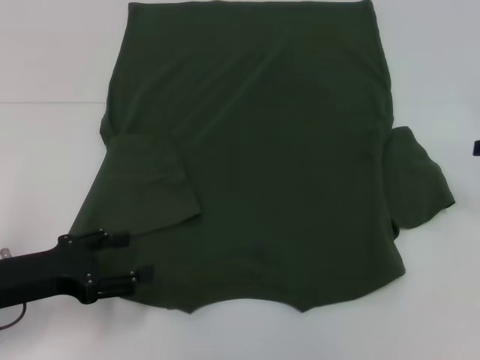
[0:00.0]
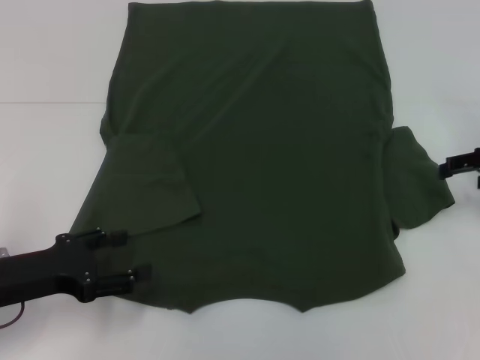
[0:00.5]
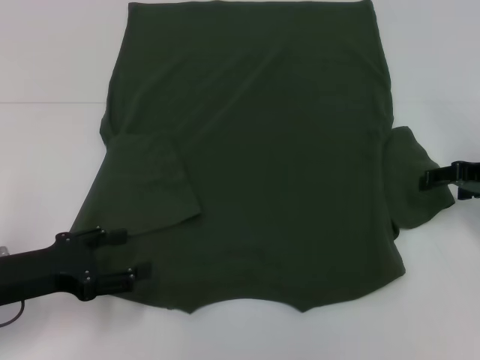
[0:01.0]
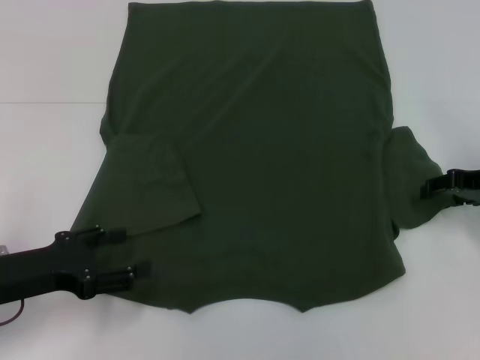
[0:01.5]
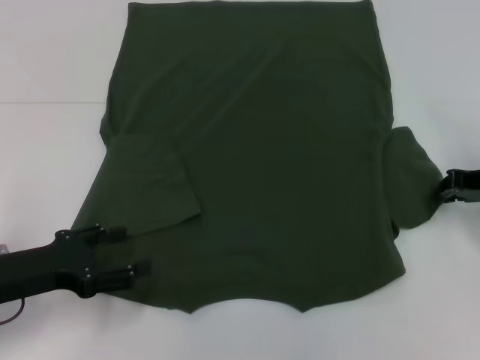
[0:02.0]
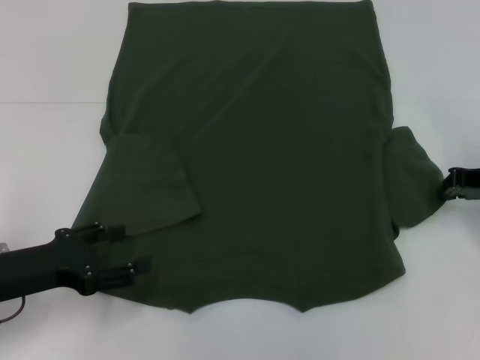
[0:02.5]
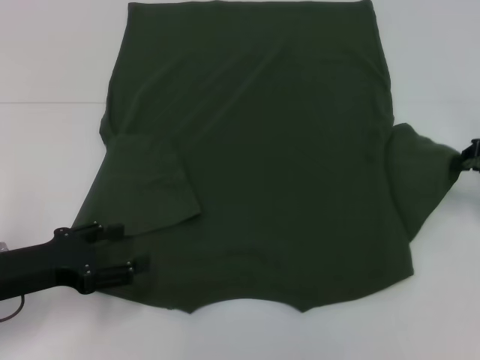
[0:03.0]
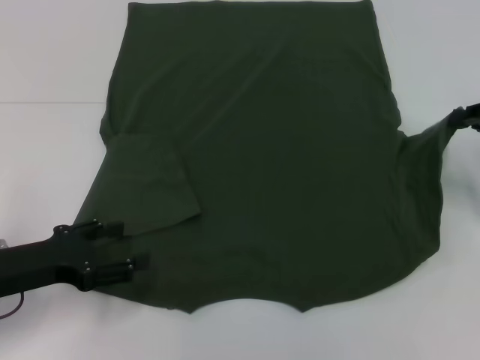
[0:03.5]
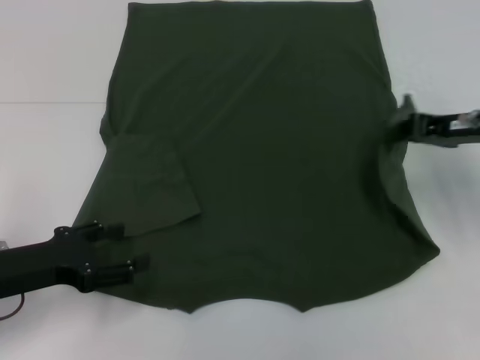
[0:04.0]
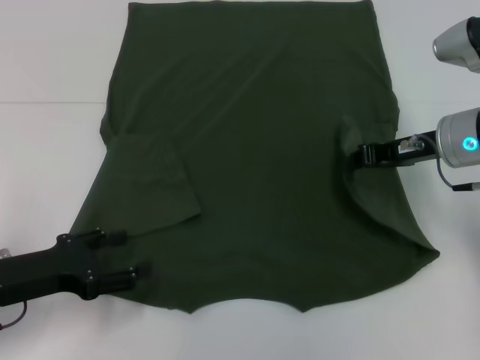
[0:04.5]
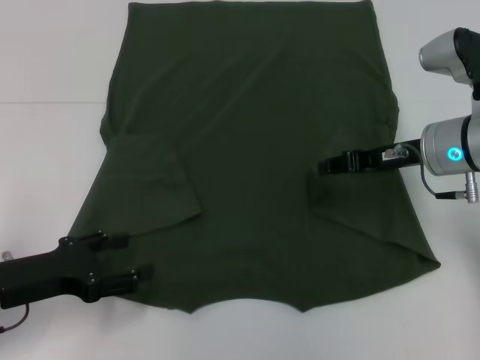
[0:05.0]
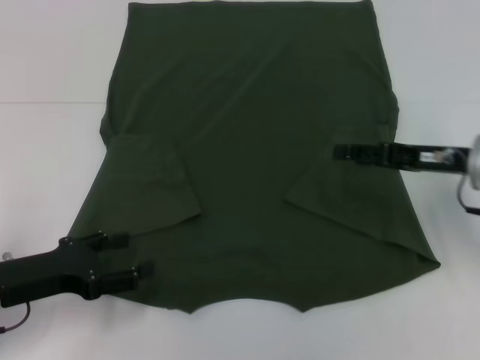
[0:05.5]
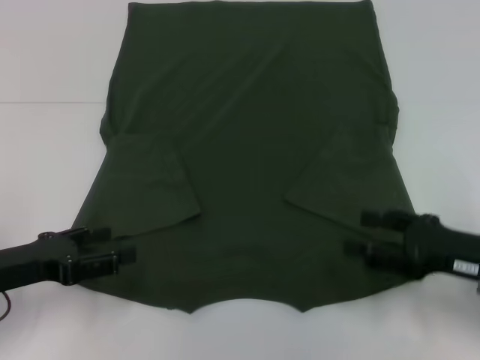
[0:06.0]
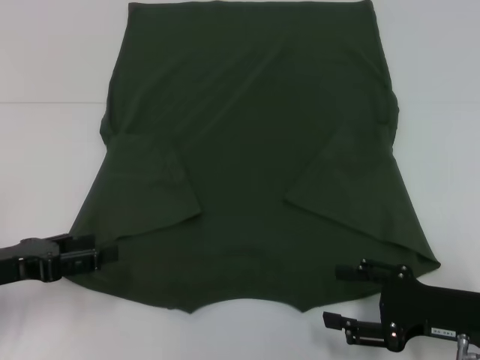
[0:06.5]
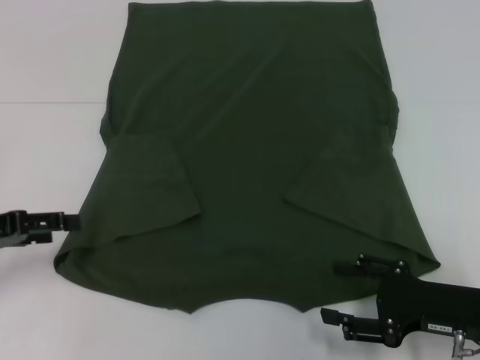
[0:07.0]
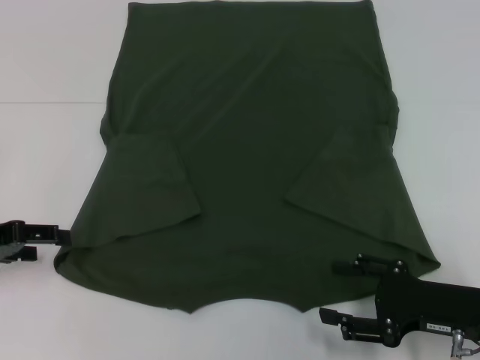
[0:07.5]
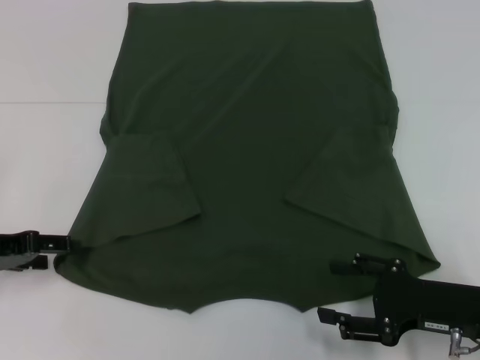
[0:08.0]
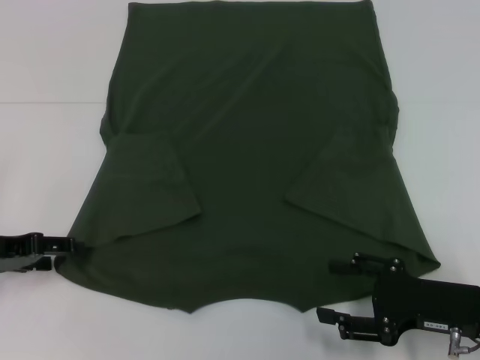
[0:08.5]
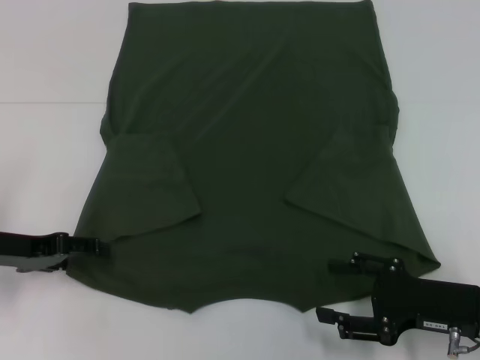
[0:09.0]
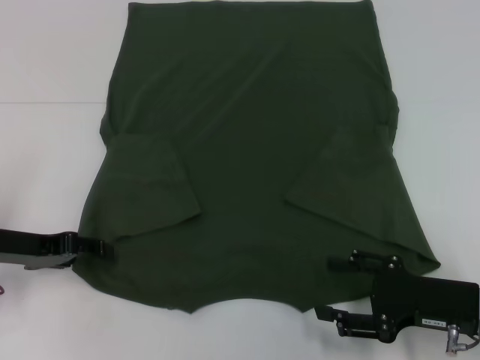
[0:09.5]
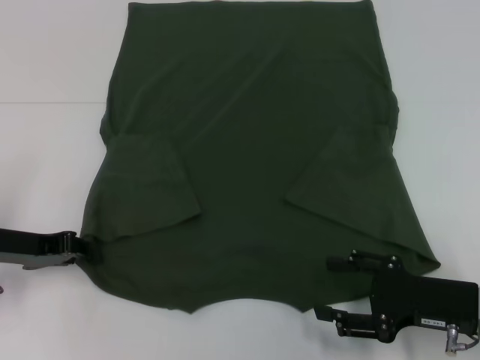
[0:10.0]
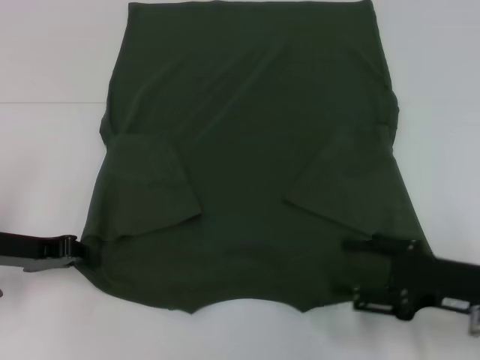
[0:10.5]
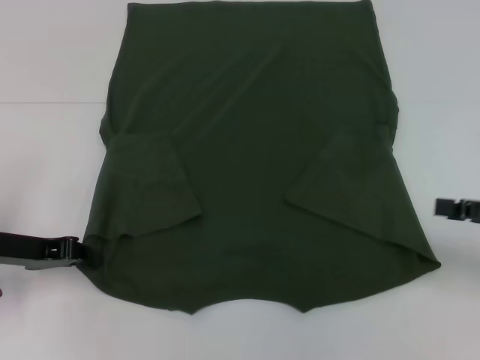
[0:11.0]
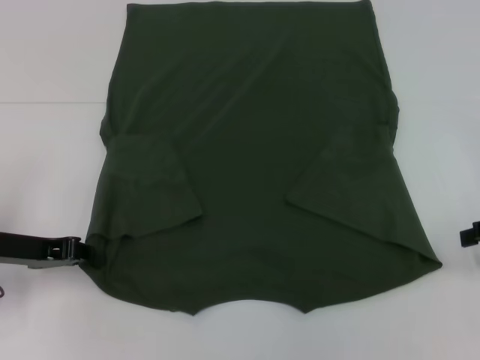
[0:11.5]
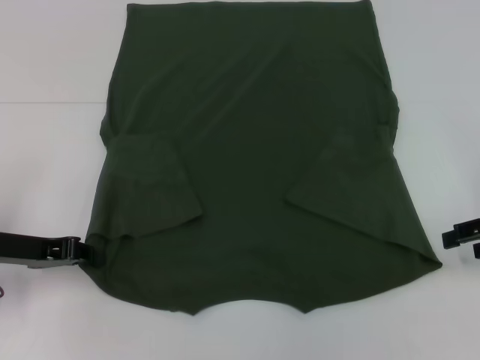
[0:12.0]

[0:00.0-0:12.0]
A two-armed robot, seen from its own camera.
Step, 0:00.0 to 0:05.0: Fold the bottom right sleeve with your right hand.
Step, 0:05.5 to 0:11.0: Grab the bottom left corner with your left hand.
0:00.0 to 0:02.0: The right gripper travels downward and to the left by roughly 10 cm, and closes its fingers.
0:04.0 to 0:06.0: The right gripper goes approximately 15 cm backward and downward, and opens.
0:06.0 to 0:08.0: The left gripper shifts roughly 5 cm forward.
0:08.0 to 0:10.0: The left gripper closes.
0:10.0 to 0:12.0: The right gripper heads to the right, upward and forward, covering approximately 15 cm.

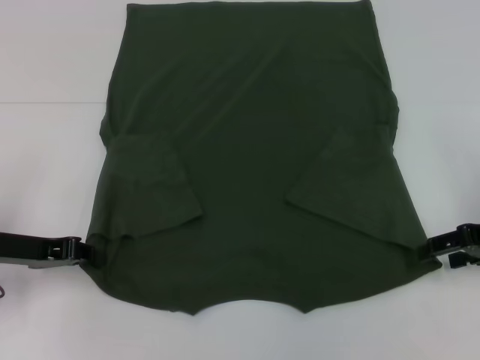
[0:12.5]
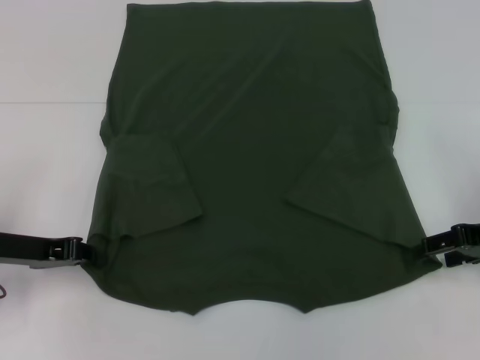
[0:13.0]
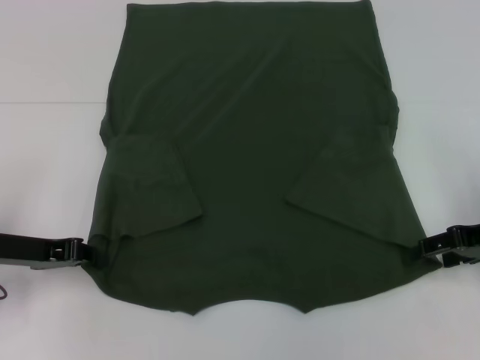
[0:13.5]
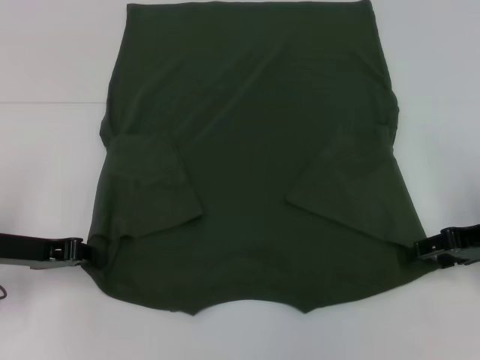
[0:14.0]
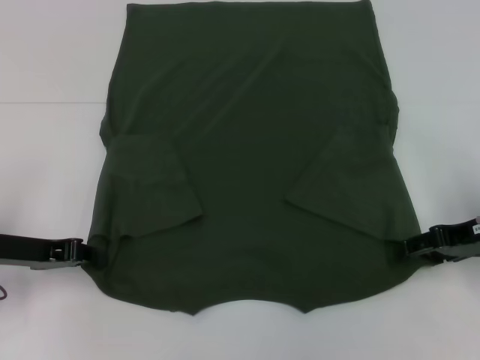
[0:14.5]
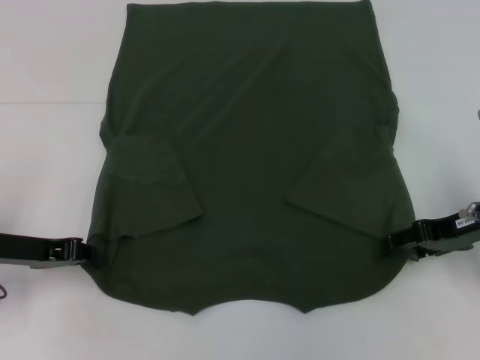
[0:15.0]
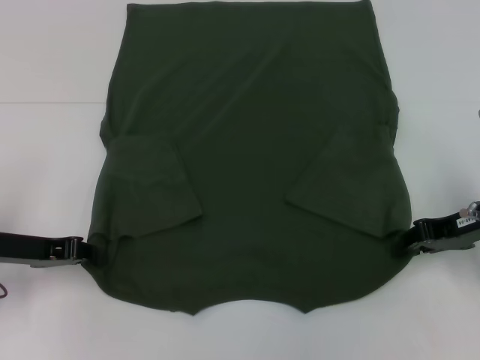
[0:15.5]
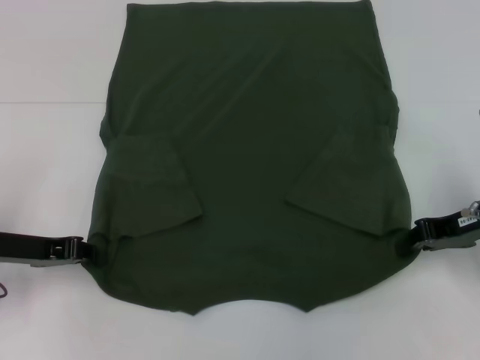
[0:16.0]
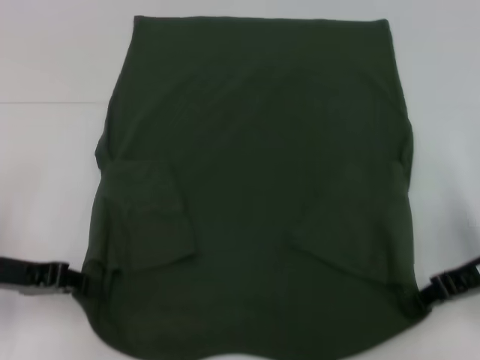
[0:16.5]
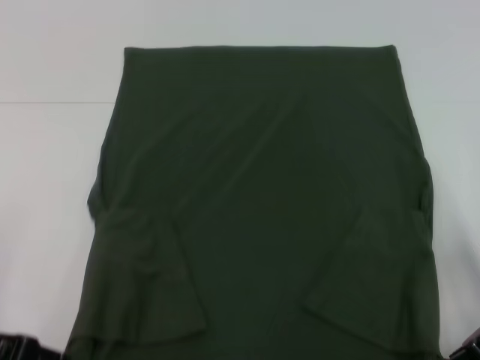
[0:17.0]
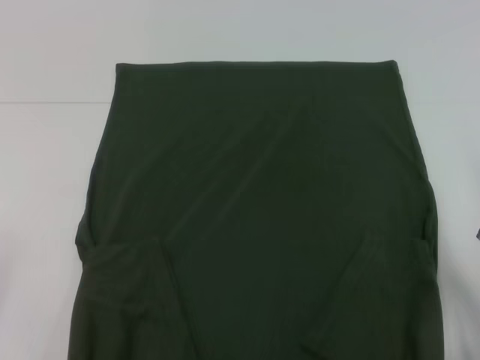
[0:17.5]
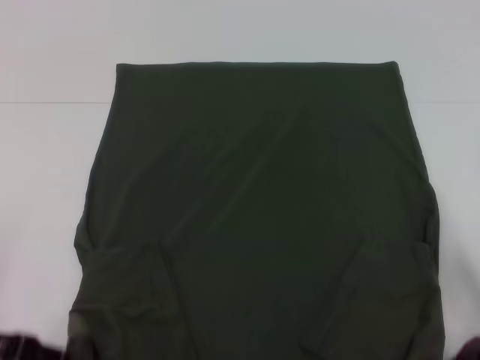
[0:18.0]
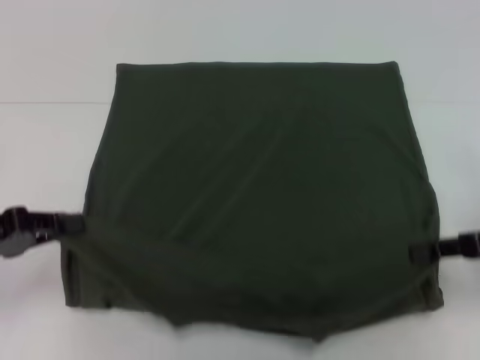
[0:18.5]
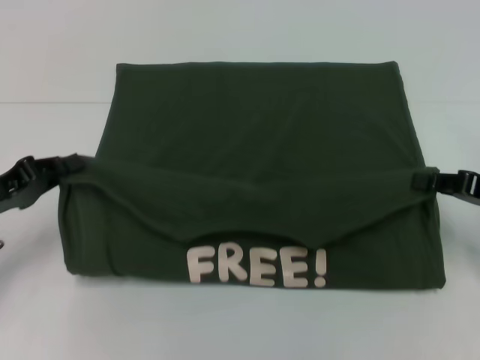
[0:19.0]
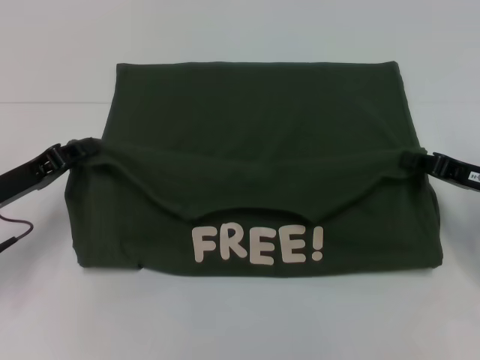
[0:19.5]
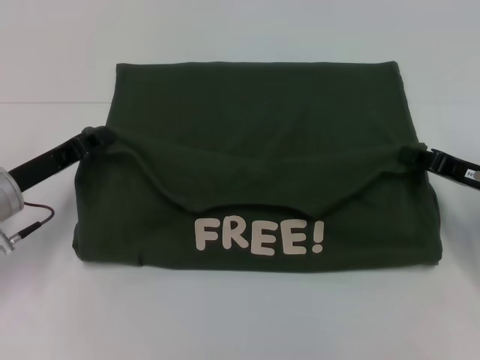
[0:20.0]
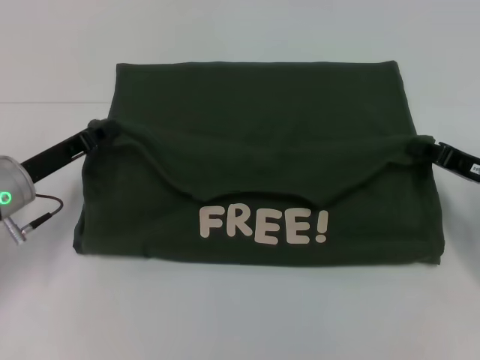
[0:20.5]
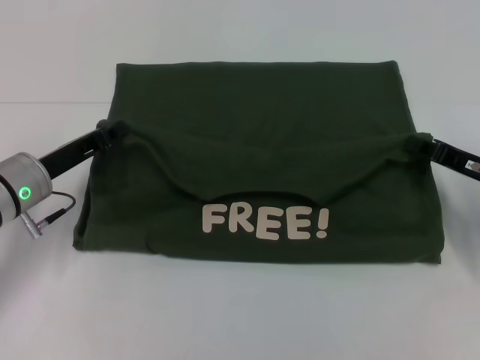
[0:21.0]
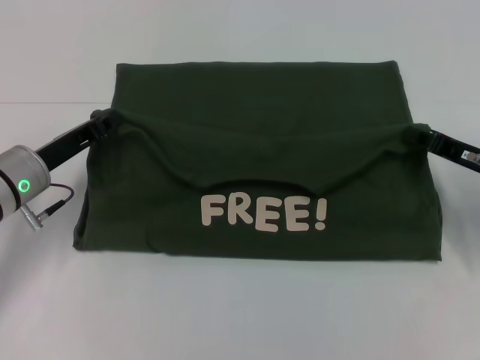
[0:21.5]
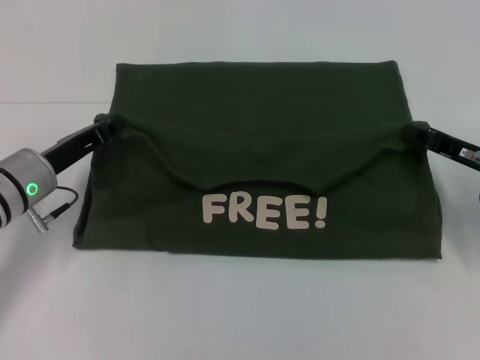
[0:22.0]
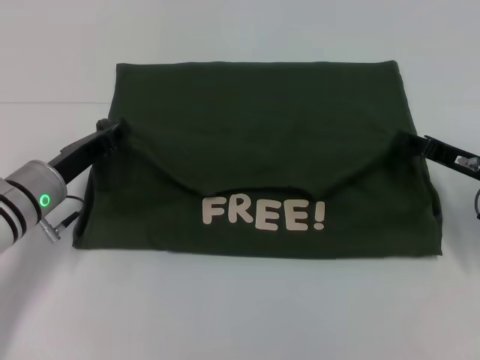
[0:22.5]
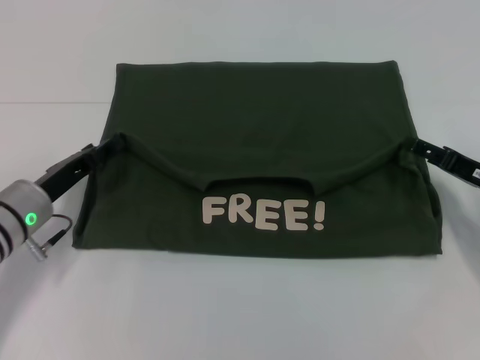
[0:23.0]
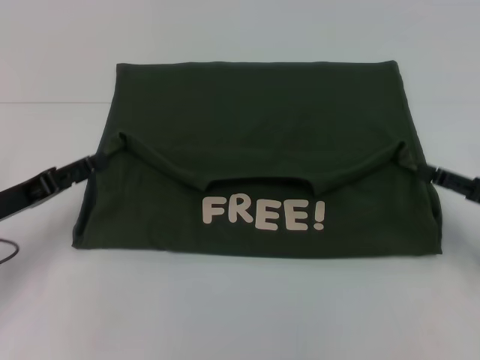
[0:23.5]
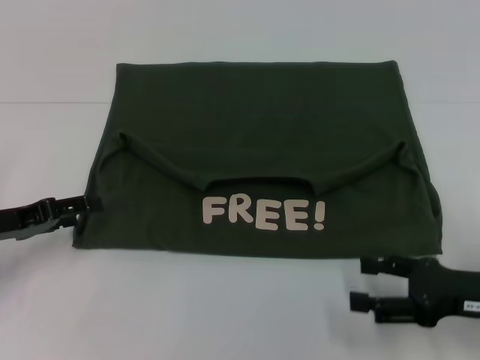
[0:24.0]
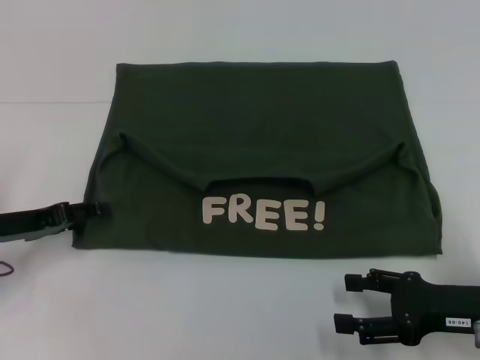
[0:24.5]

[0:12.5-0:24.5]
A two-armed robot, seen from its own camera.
Step, 0:12.5 to 0:15.5: Grab the bottom right corner with your right hand.
Step, 0:16.0 to 0:23.0: Fold the clothes with your left hand.
Step, 0:16.0 to 0:23.0: Fold the clothes with your right hand.
0:12.5 to 0:14.5: The grippers make only small movements.
0:14.5 to 0:16.5: The right gripper closes its fingers.
0:16.5 to 0:18.5: The left gripper moves some 10 cm backward and comes back.
0:18.5 to 0:20.5: The right gripper moves downward, some 5 cm, while the left gripper travels forward and to the right by about 10 cm.
0:20.5 to 0:22.5: The grippers stay close to where they were, moving slightly.
0:22.5 to 0:24.5: The left gripper moves to the left, about 10 cm, and opens its fingers; the right gripper moves backward, about 10 cm, and opens.

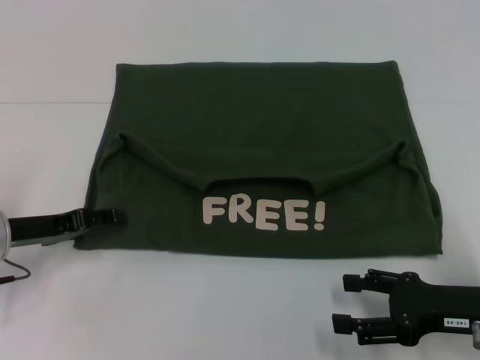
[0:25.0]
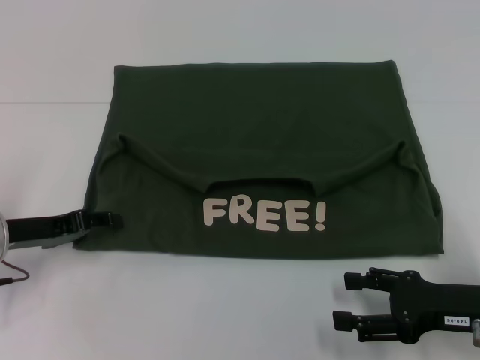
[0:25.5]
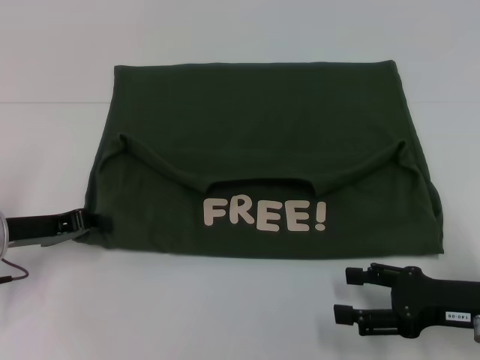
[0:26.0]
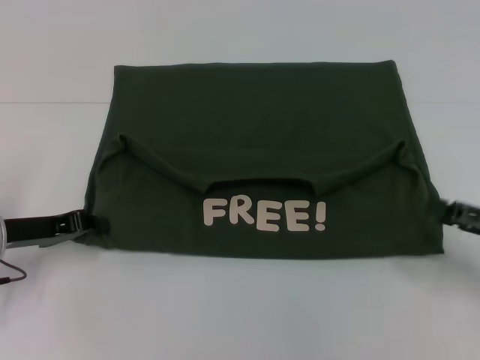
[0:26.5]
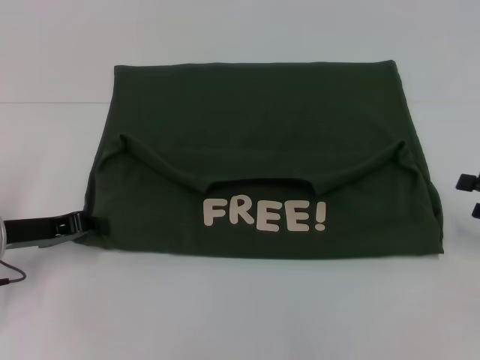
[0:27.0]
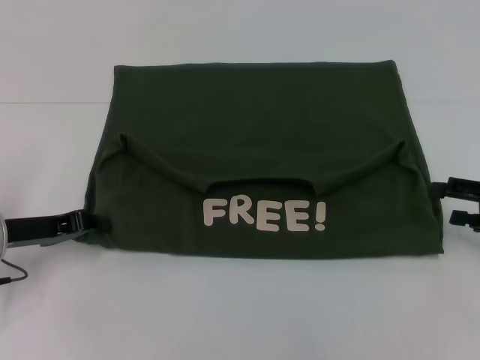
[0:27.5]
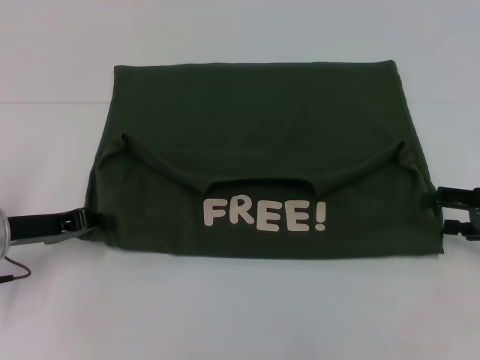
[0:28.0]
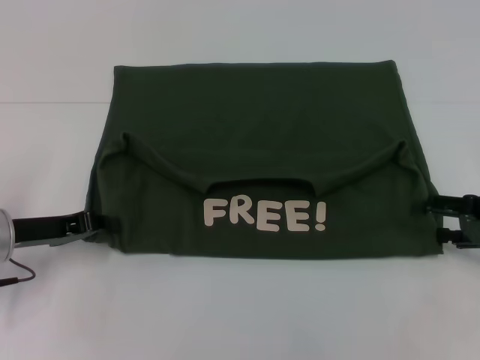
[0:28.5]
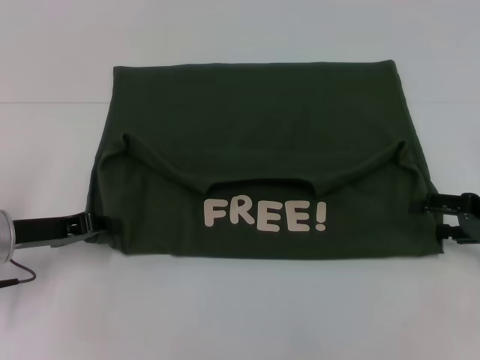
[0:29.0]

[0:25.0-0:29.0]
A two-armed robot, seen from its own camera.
0:25.0 to 0:27.0: The left gripper closes. The right gripper travels to the right by some 10 cm.
0:27.0 to 0:29.0: There are only small adjustments of the grippers.
